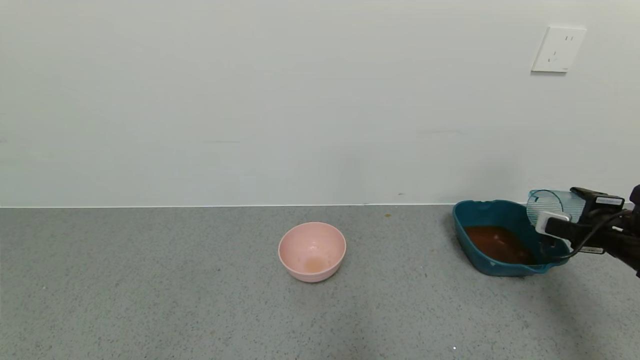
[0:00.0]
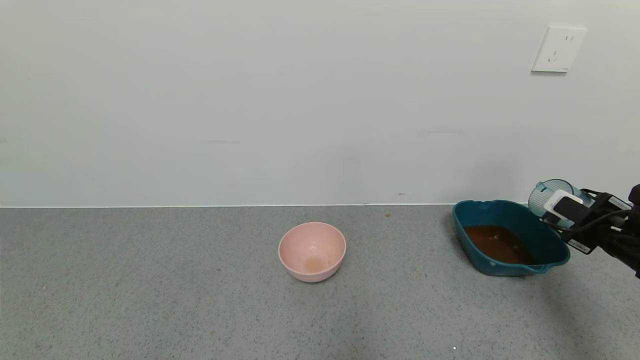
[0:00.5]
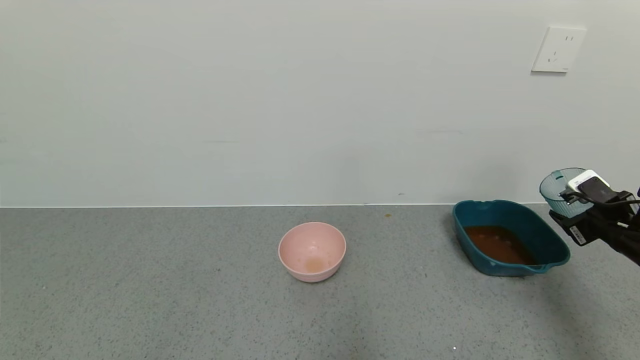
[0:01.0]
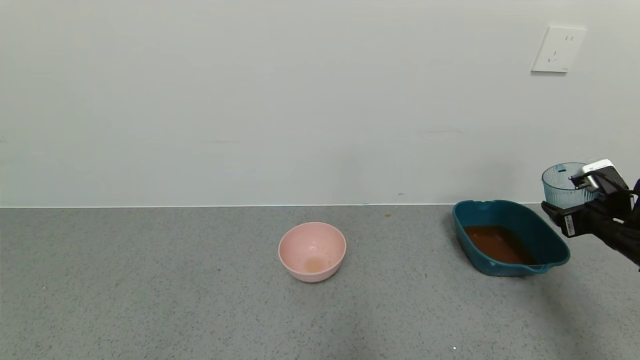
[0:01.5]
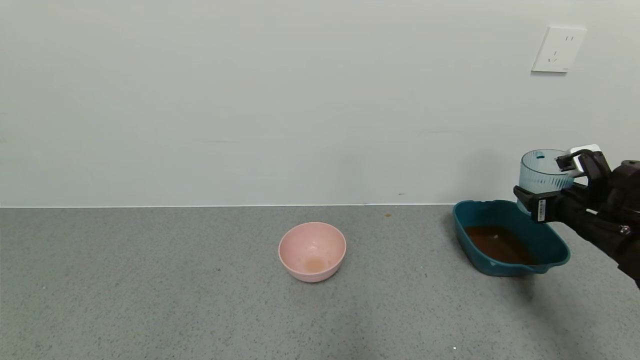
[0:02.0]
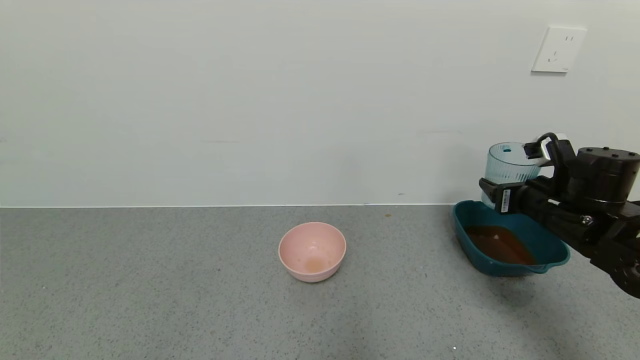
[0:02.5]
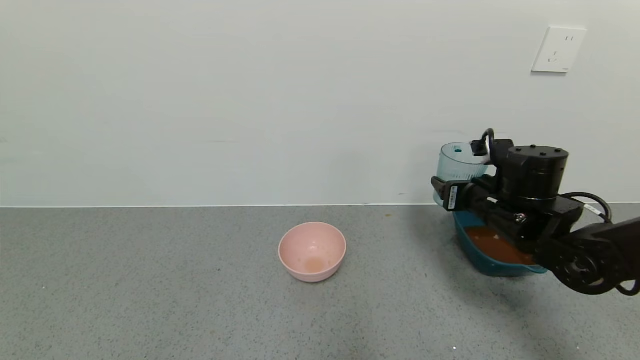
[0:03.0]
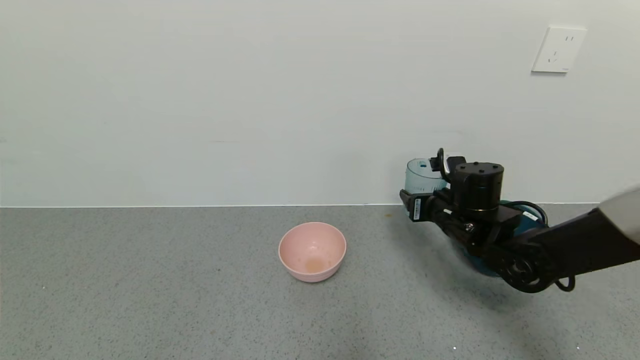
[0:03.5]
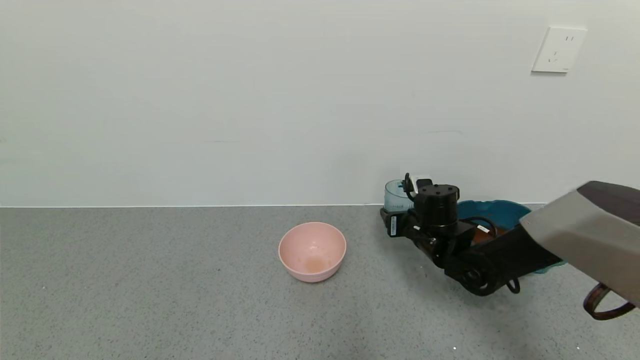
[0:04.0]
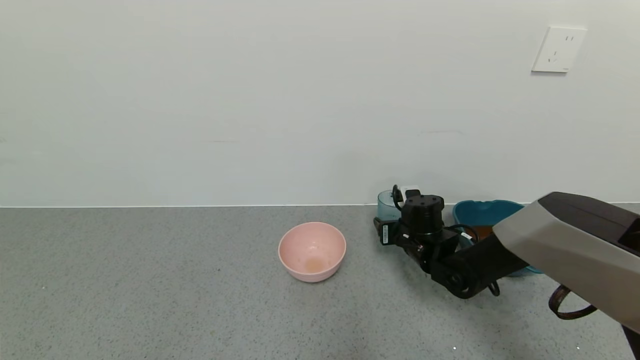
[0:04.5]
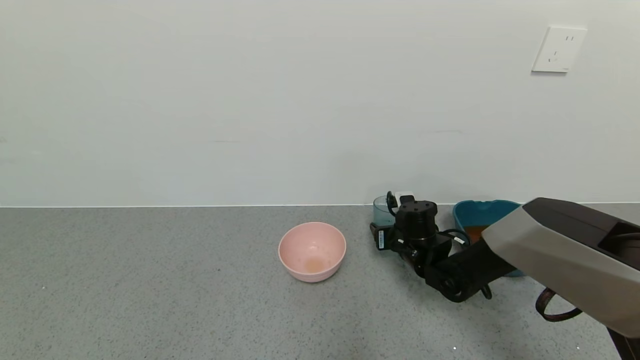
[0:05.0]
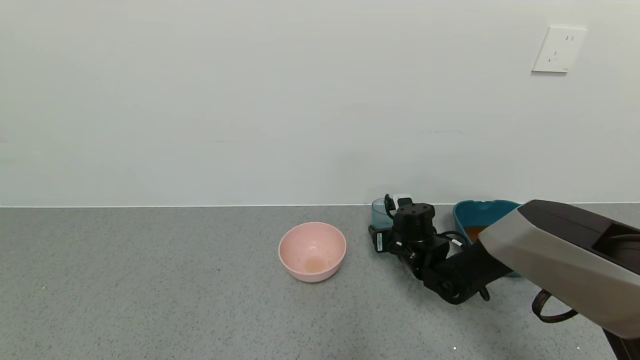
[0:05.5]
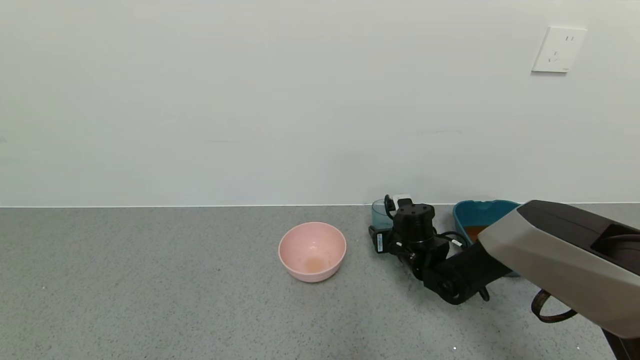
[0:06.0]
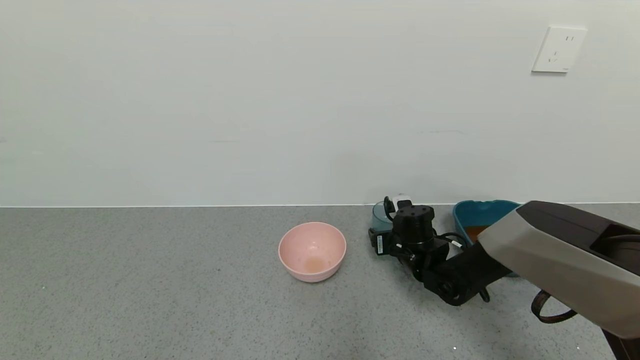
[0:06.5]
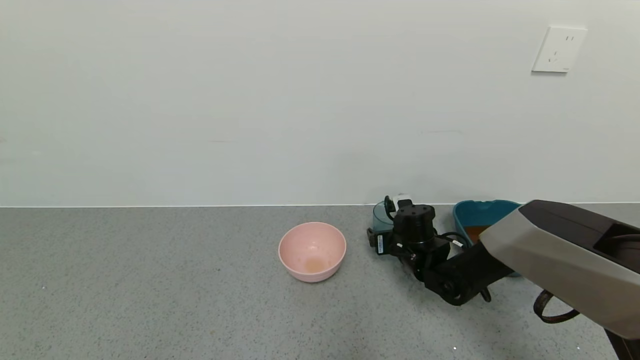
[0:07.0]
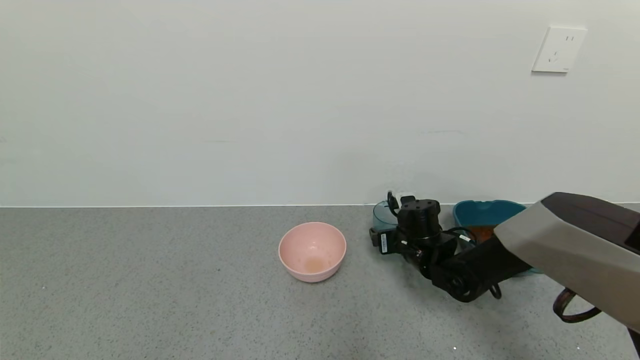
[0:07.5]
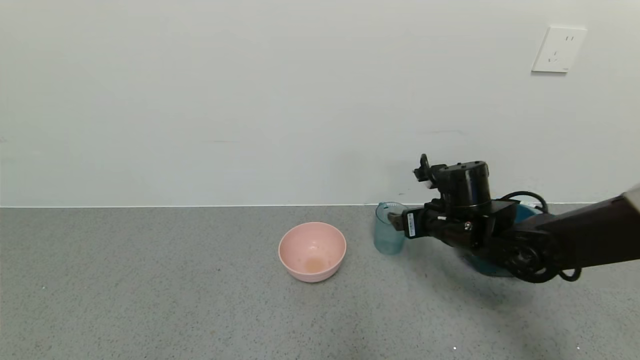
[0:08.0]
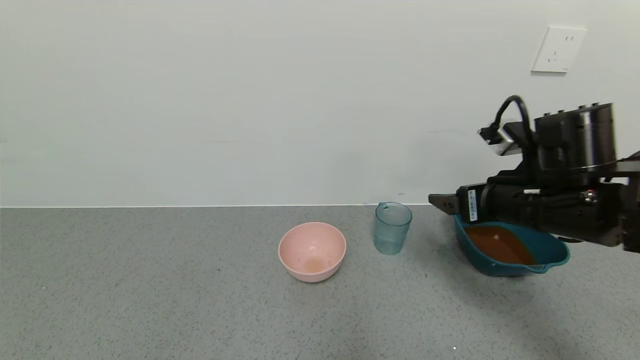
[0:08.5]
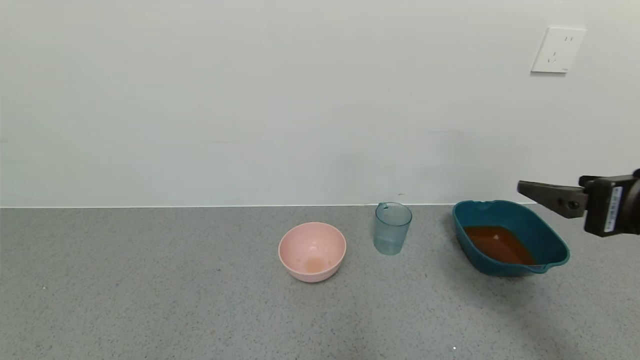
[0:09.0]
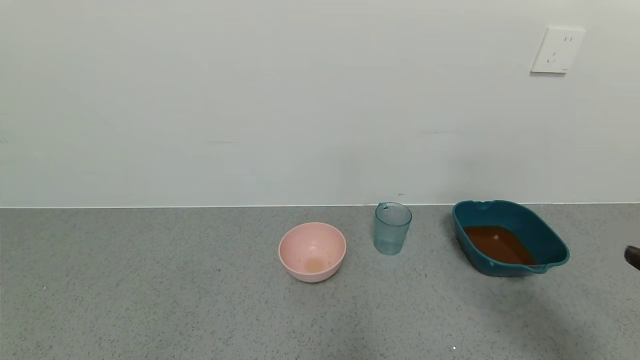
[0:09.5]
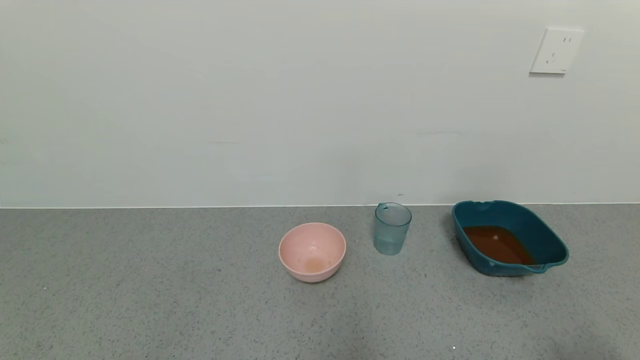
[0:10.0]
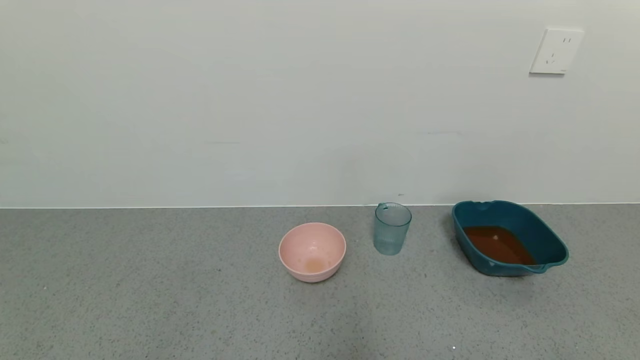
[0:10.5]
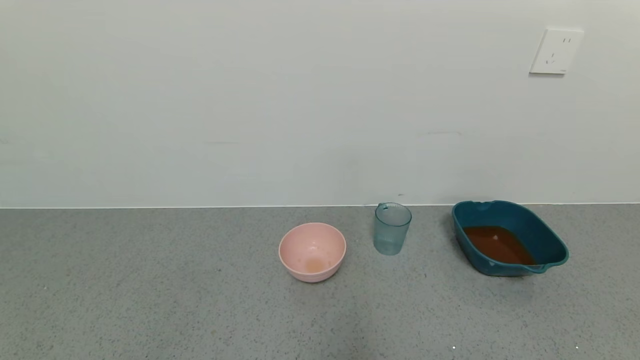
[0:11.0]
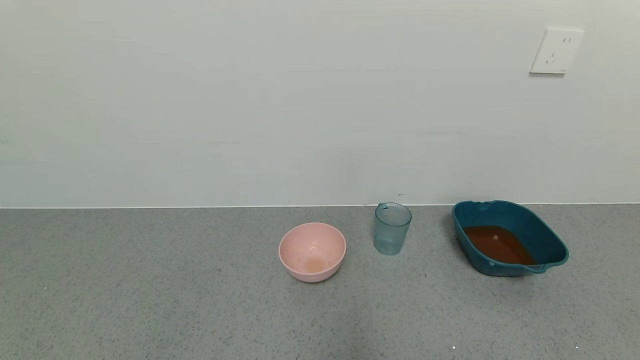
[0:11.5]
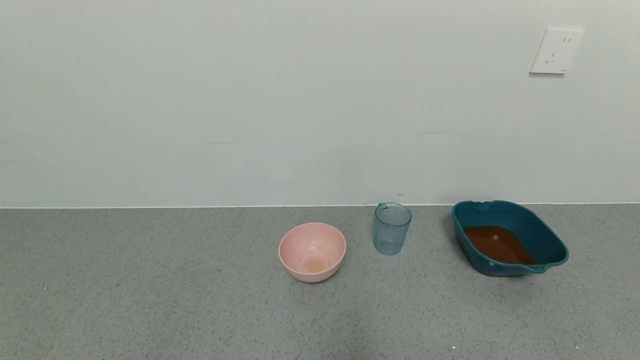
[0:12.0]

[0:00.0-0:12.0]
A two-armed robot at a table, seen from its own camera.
Task of the whole recording: use a gripper to pick up the cup and pour the liquid into a bowl or tray.
Step, 0:00.0 to 0:09.0: Place the glass cup with the right gripper.
0:00.0 to 0:02.0: The right gripper goes approximately 5 cm to the left.
0:02.0 to 0:04.0: The right gripper heads to the left, covering roughly 20 cm.
0:04.0 to 0:06.0: The right gripper shifts by roughly 5 cm.
0:06.0 to 0:08.0: The right gripper travels upward and backward by roughly 10 cm, and opens its fingers.
0:08.0 to 0:10.0: The right gripper shifts about 40 cm backward and to the right.
